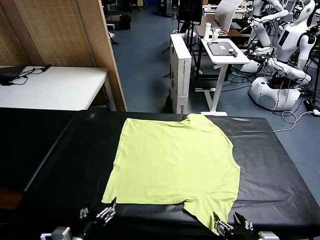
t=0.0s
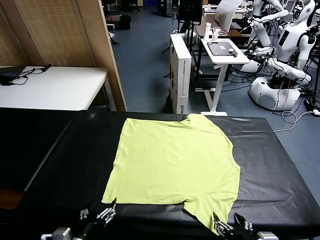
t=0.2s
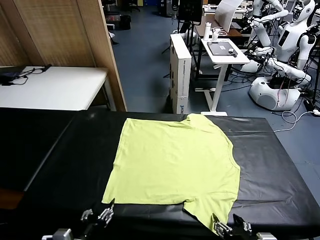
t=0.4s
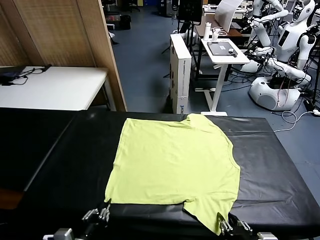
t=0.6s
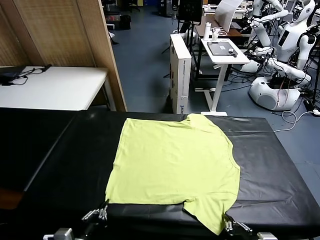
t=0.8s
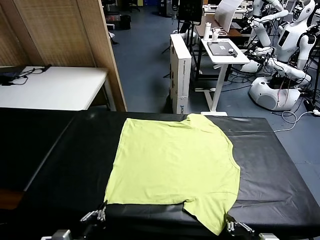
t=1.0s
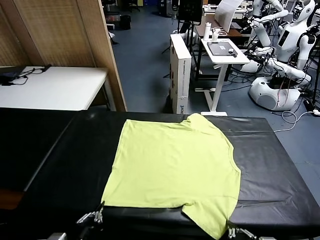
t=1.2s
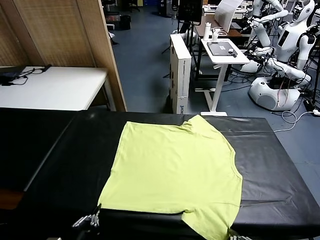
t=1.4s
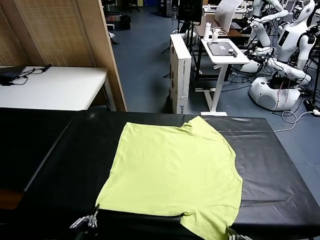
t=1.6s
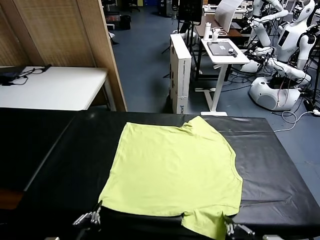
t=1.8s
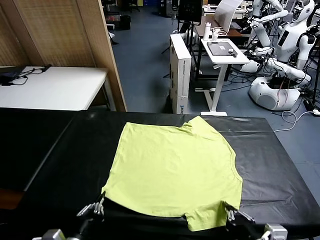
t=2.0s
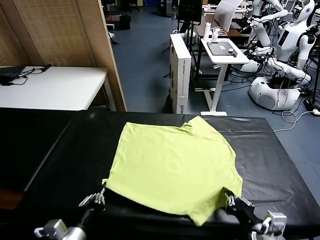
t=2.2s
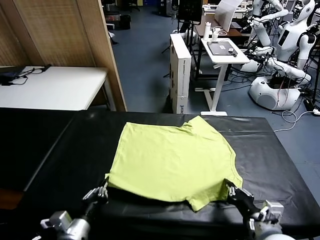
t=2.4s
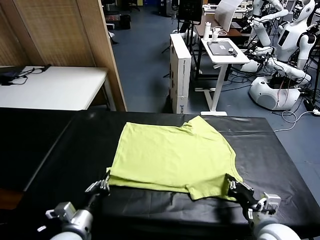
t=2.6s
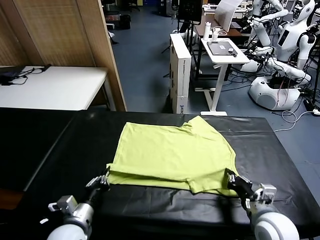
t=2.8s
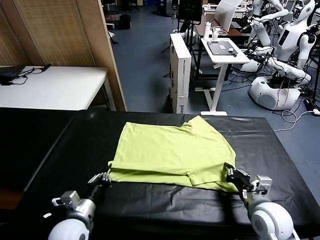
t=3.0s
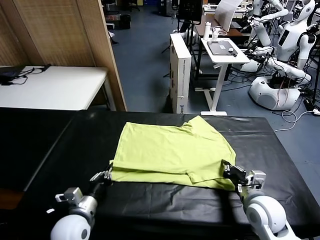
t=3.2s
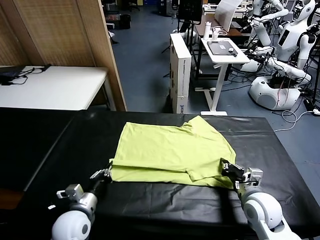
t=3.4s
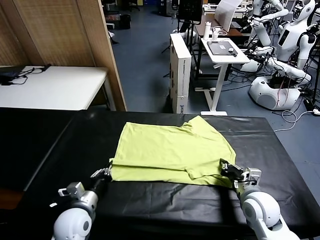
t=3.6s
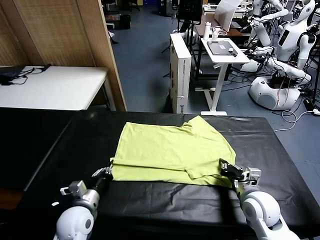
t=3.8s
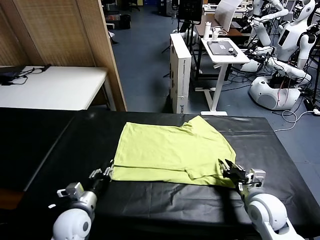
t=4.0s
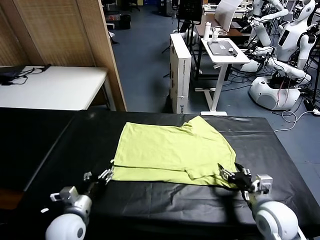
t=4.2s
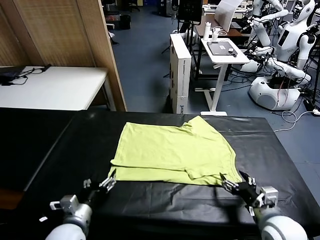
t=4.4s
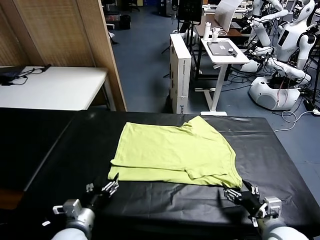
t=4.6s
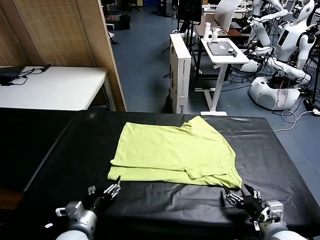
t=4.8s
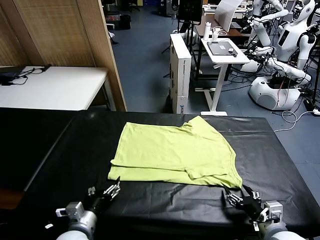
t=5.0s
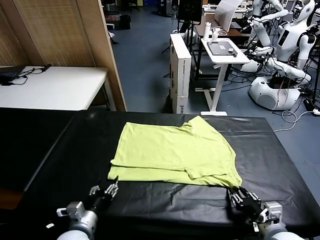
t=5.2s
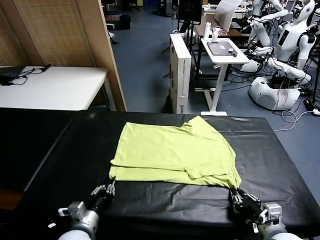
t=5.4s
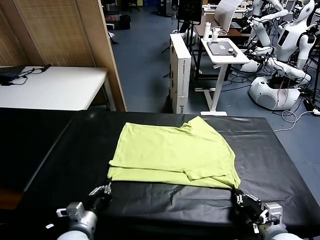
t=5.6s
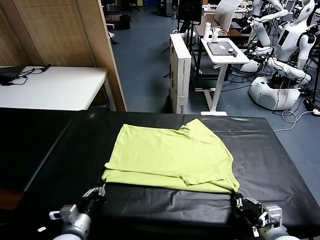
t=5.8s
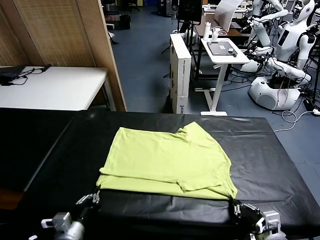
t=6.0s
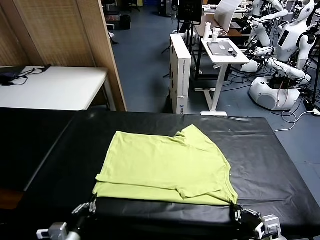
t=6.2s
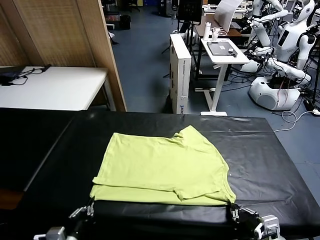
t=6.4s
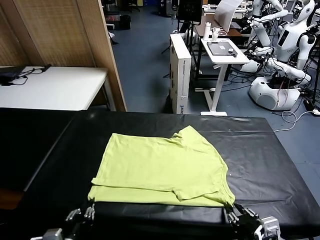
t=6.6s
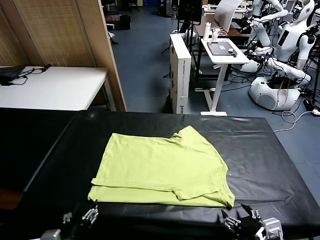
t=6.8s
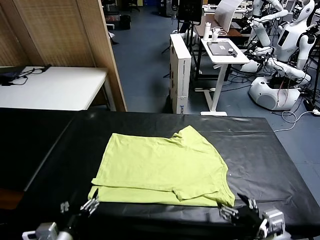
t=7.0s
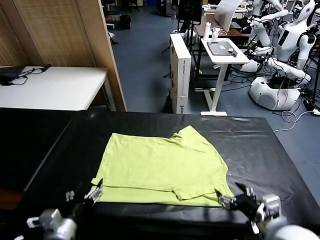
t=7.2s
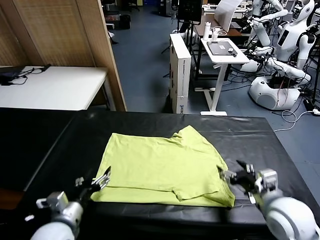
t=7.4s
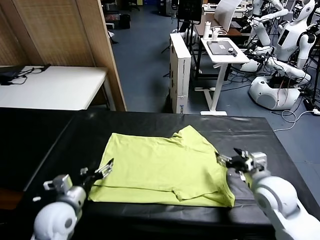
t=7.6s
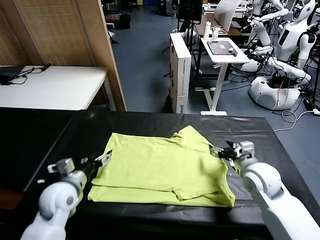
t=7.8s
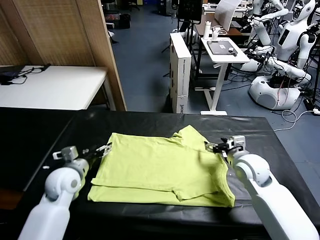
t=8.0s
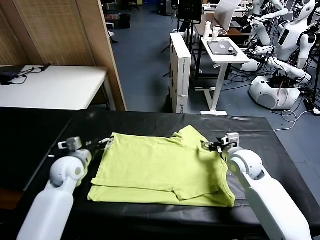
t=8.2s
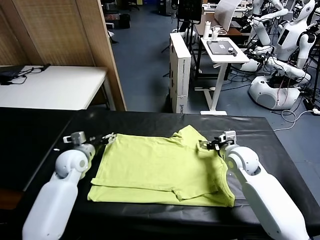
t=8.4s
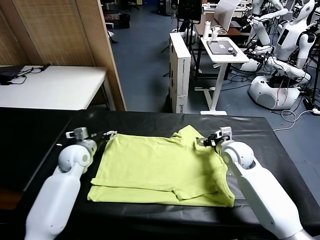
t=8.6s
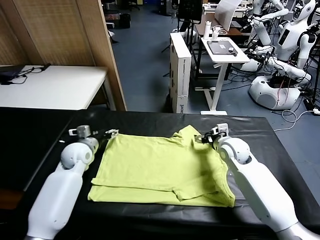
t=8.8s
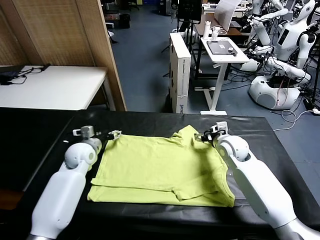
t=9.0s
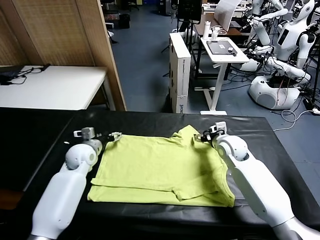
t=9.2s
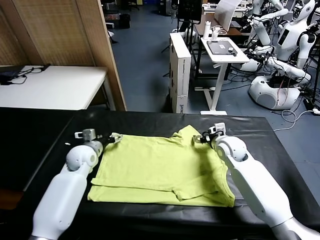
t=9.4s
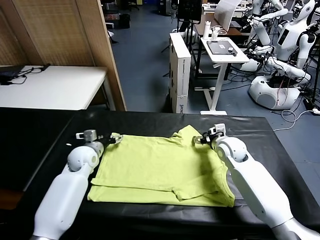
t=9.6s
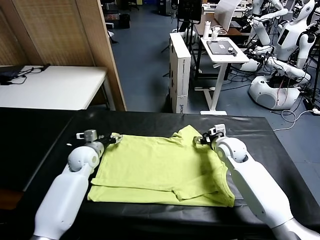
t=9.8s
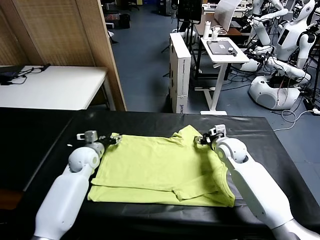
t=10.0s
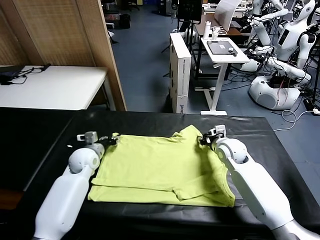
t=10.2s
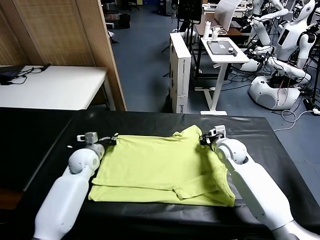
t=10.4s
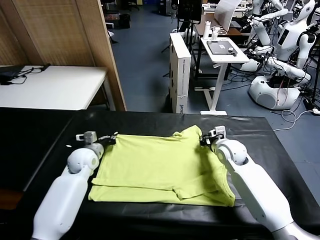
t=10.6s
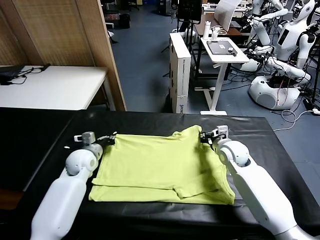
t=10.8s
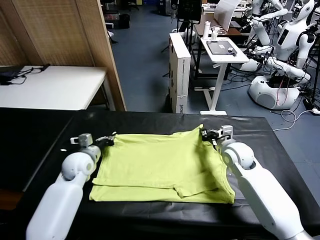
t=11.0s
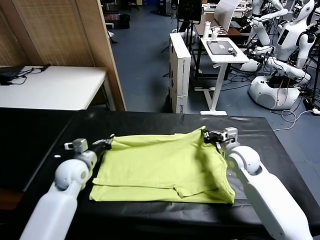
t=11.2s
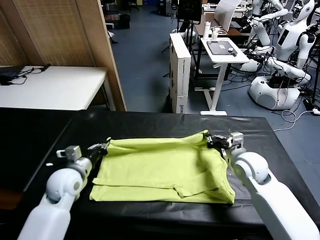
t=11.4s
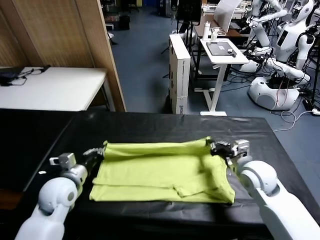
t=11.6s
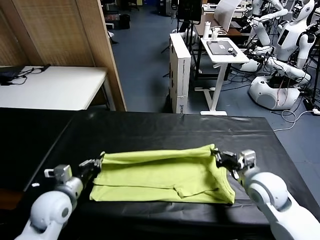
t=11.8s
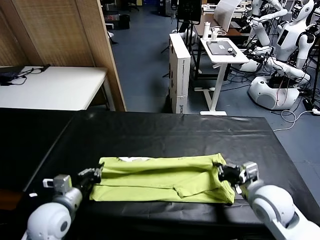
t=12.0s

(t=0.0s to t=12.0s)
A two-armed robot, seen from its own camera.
Task of the whole recording: fold and organize the clothes.
Step, t=0.0s - t=1.0s: use both grippers simultaneously to clamp the lower edge of the clothing fabric.
Step, t=1.2s - t=4.0s: use both grippers to drag the lower edge of the fabric forward and fold it over the upper edge.
Step, t=4.2s - t=6.6s: Drag the clothes downward with both gripper.
Step, t=7.0s - t=10.2s: use both grippers simultaneously to clamp the upper edge of the clothing fabric.
t=1.6s - t=3.0s: The two grippers go about 15 cm forward.
t=3.0s - t=4.4s: The right gripper travels backward by about 5 cm, and opens; the left gripper opens its fingers.
t=4.4s - t=6.0s: Both grippers move backward, roughly 5 cm. The right gripper closes up; the left gripper closes its fingers.
t=6.0s - t=7.6s: The two grippers go some 15 cm forward. The right gripper opens. The left gripper opens.
t=7.6s - t=9.0s: The grippers both shift forward by some 15 cm.
t=9.0s - t=10.4s: The right gripper closes its fingers, while the left gripper closes its fingers.
t=10.4s - t=12.0s: Both grippers move backward, some 20 cm.

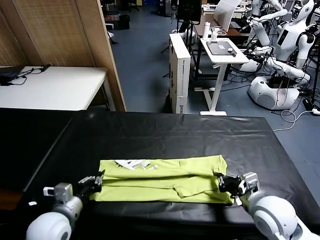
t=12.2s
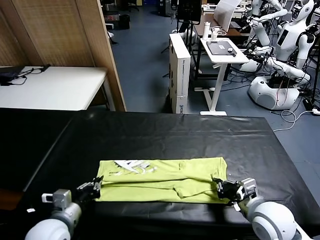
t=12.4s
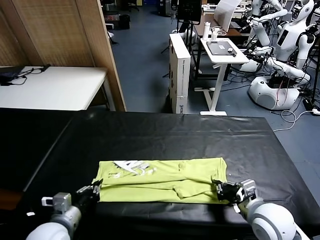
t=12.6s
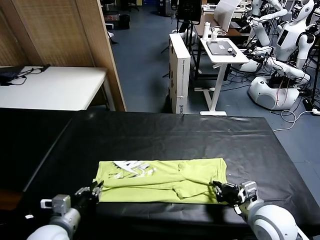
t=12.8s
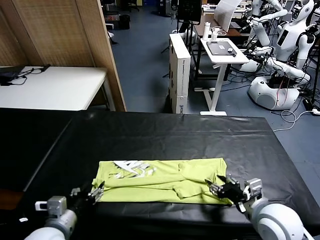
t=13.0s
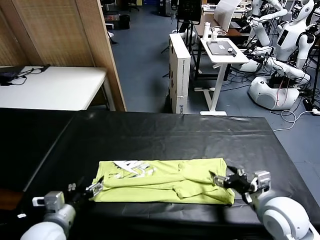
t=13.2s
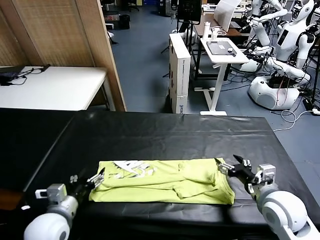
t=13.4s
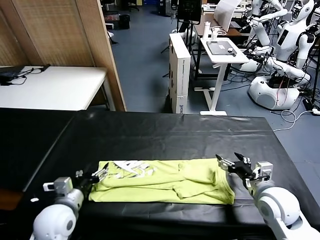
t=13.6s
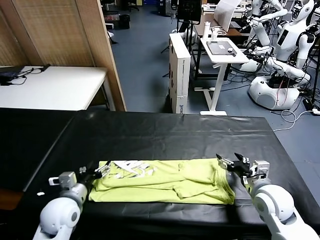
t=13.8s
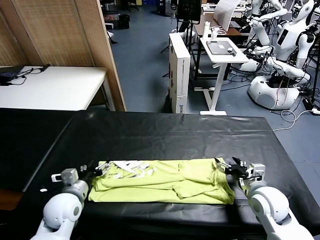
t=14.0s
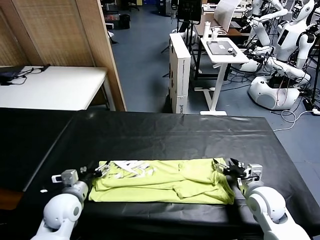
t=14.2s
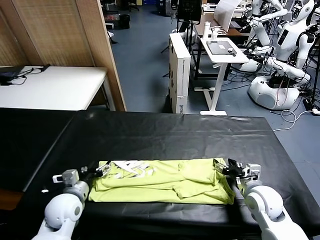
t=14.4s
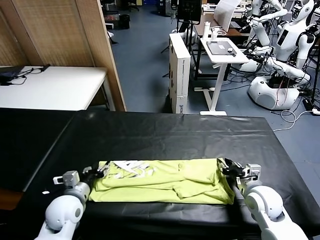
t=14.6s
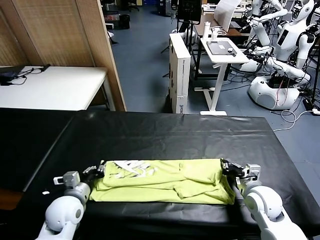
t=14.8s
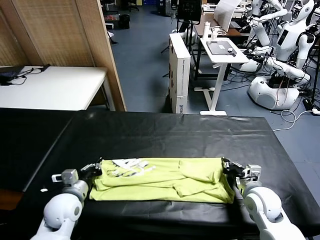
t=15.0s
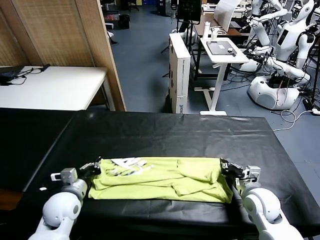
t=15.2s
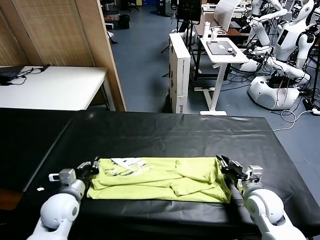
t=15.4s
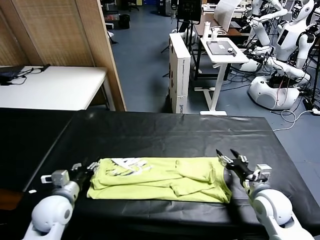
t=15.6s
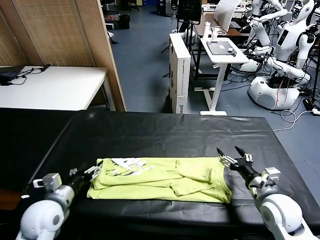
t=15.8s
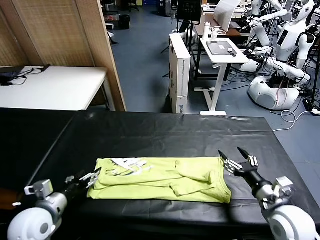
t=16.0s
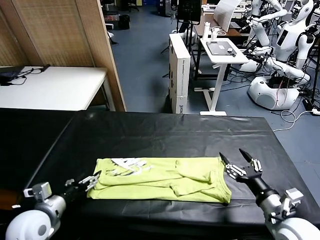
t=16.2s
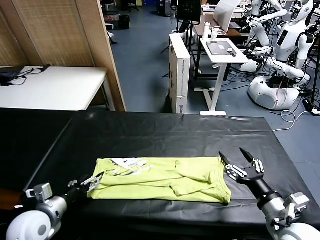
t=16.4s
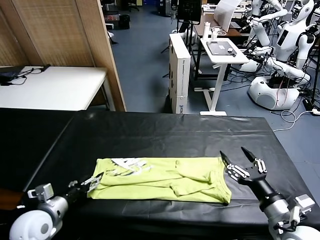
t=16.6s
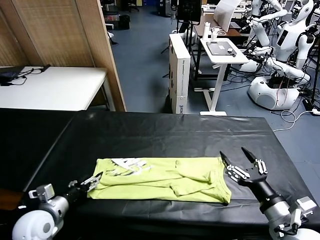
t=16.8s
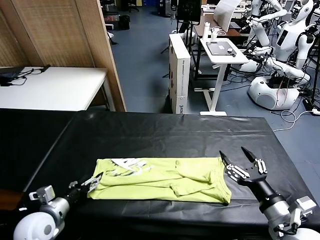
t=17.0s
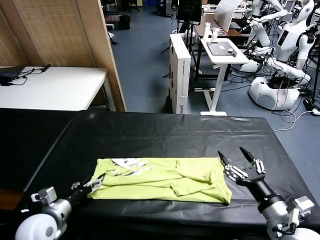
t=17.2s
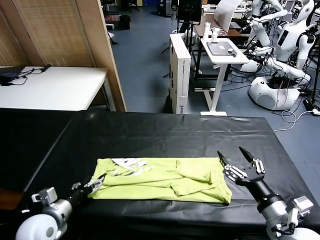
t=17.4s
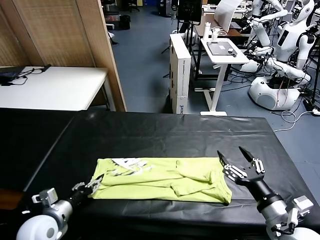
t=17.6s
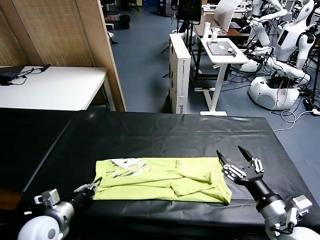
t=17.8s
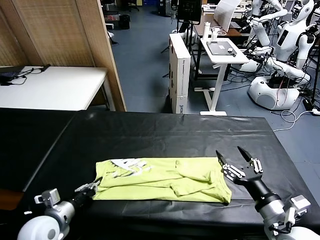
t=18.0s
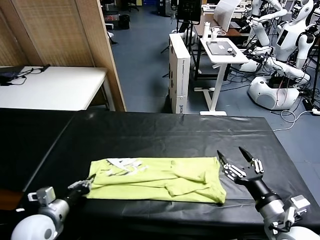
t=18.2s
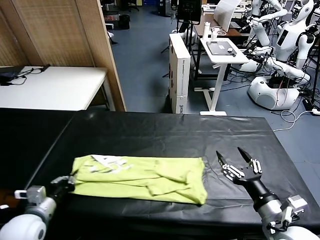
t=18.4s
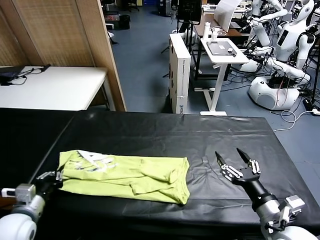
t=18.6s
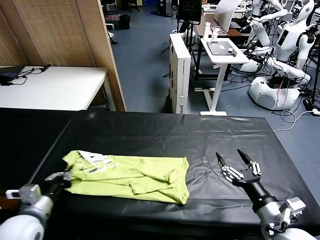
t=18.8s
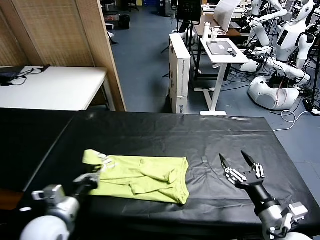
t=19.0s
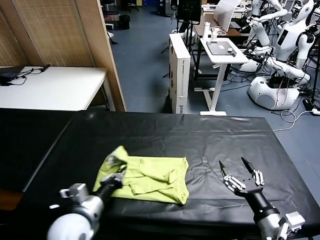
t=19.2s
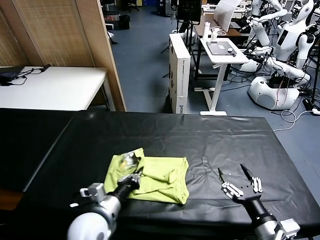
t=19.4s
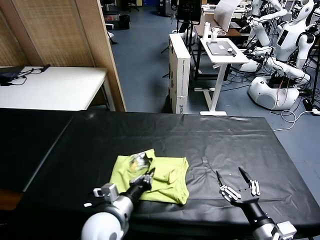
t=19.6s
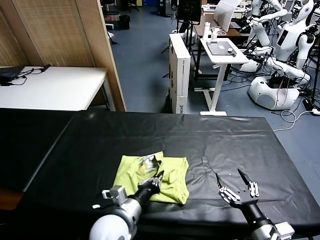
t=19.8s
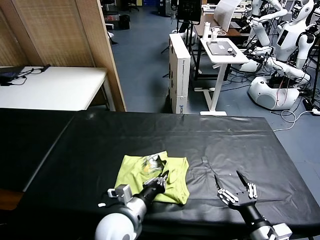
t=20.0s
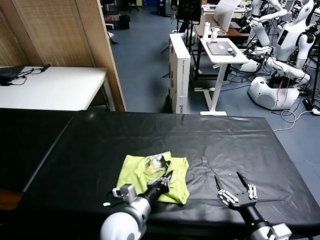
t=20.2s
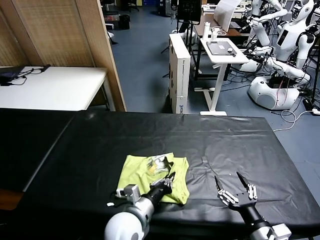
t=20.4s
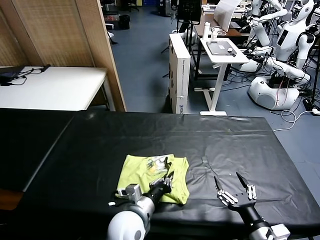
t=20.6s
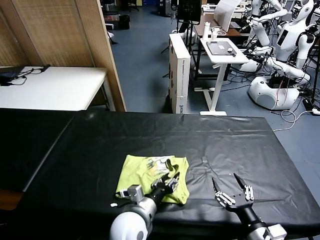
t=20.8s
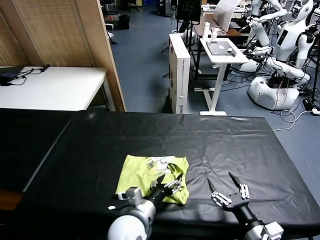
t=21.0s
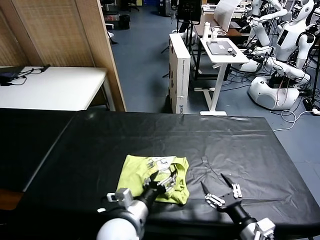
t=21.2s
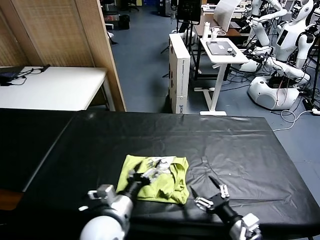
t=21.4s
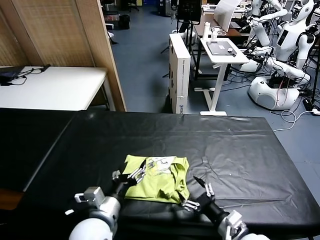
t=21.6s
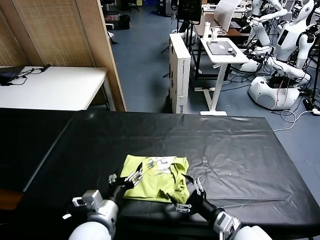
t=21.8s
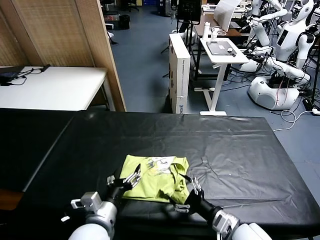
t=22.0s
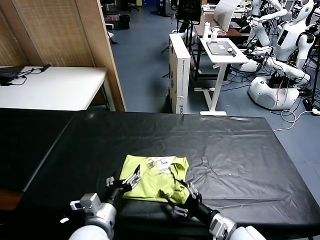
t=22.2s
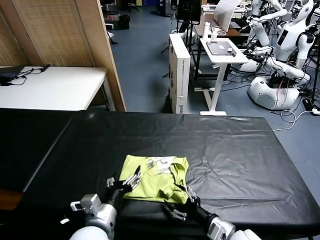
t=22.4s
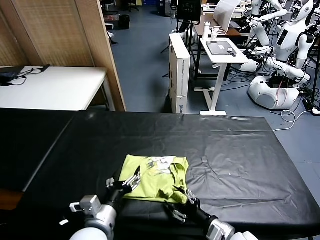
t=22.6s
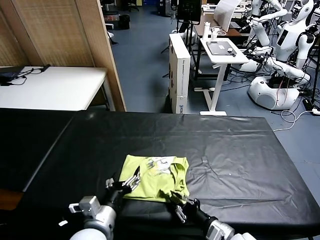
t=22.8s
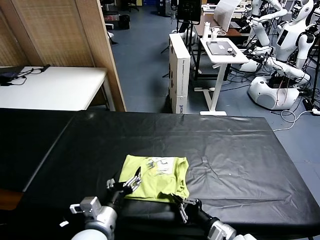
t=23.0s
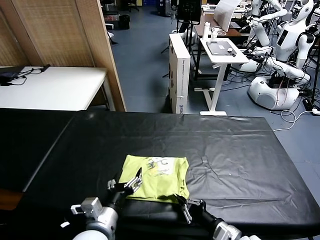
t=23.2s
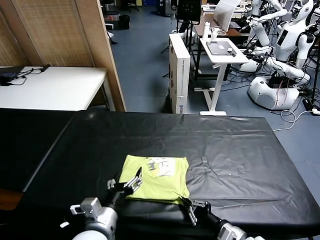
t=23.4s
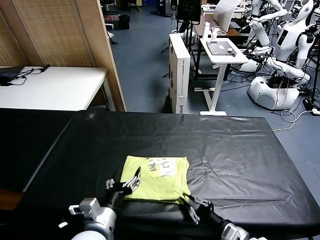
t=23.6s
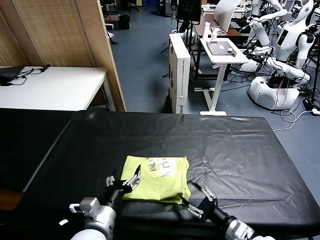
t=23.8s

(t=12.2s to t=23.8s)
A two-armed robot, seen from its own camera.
Task of the whole recording: fold and organize the clothes.
Step, t=13.2s - t=17.8s: use the left gripper to clamp the left edge of the fabric.
Step, t=18.0s - t=21.0s: use the left gripper to drag the left edge of the fabric to the left and folds it over the right edge.
t=12.2s - t=13.6s: The right gripper opens up; the left gripper travels forward by some 5 cm, and opens up.
t=13.6s - t=15.0s: The right gripper goes some 5 cm downward, and closes up, while the left gripper closes up.
t=15.0s - t=16.6s: The left gripper goes approximately 10 cm backward and to the left, and opens up. Meanwhile the right gripper shifts approximately 15 cm backward and upward, and opens its fingers.
t=16.6s - t=18.0s: The left gripper closes its fingers.
t=18.0s - t=19.4s: The right gripper travels downward by approximately 5 cm. The left gripper is displaced to the right by about 20 cm.
t=19.4s - t=21.0s: The left gripper opens.
t=21.0s - t=22.4s: The right gripper travels to the left and forward by approximately 10 cm. Meanwhile the left gripper is displaced to the left by roughly 5 cm.
t=22.4s - t=23.8s: The right gripper moves about 5 cm, and closes, then opens again.
